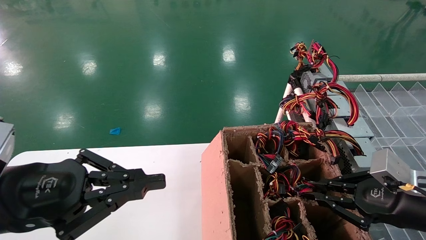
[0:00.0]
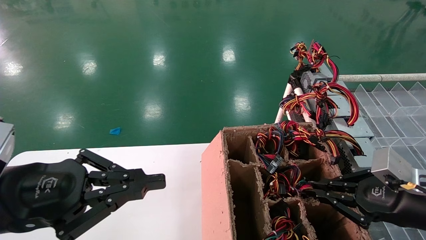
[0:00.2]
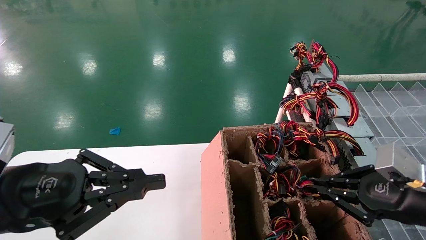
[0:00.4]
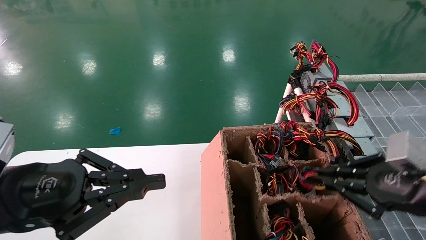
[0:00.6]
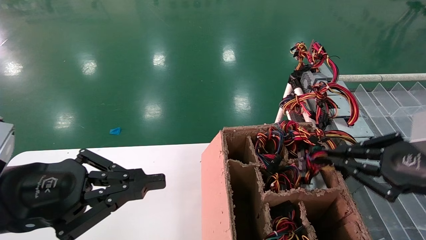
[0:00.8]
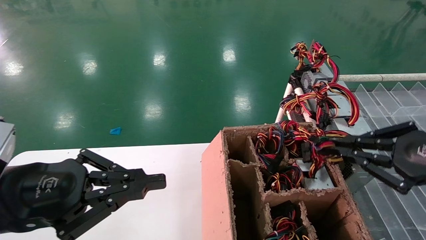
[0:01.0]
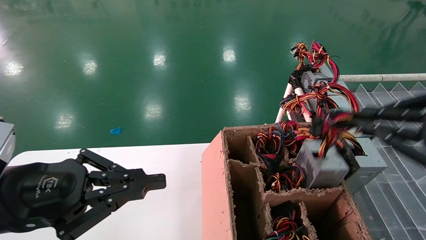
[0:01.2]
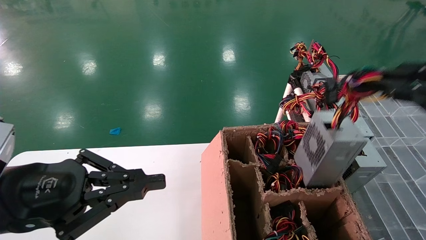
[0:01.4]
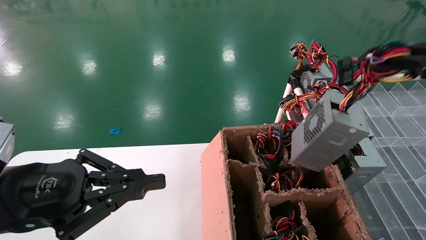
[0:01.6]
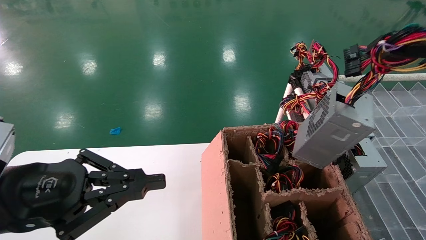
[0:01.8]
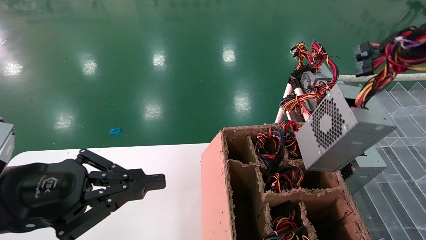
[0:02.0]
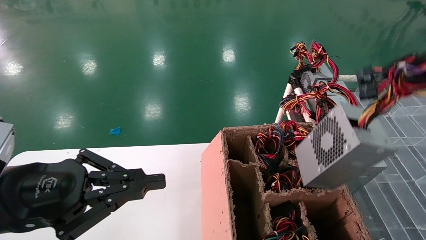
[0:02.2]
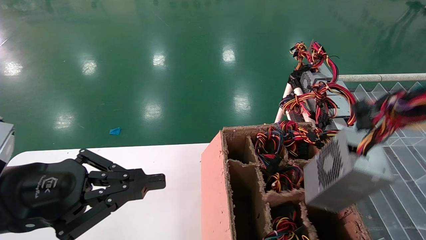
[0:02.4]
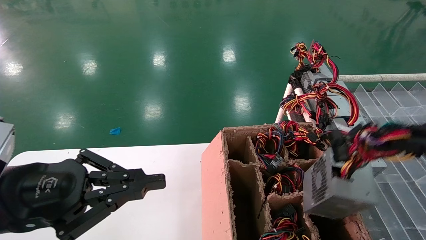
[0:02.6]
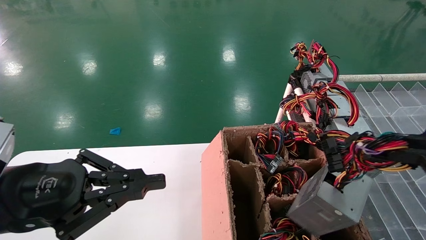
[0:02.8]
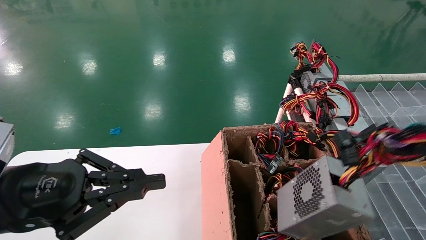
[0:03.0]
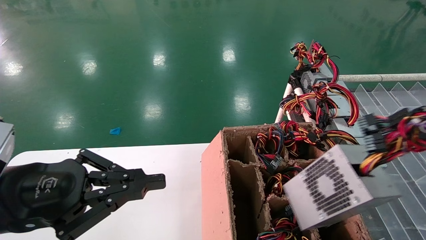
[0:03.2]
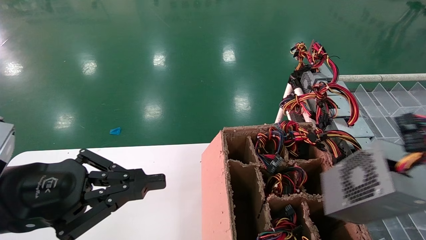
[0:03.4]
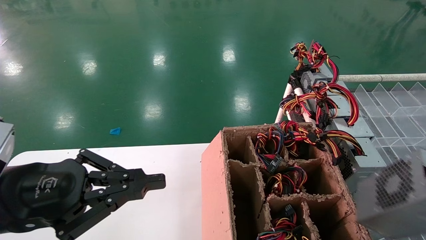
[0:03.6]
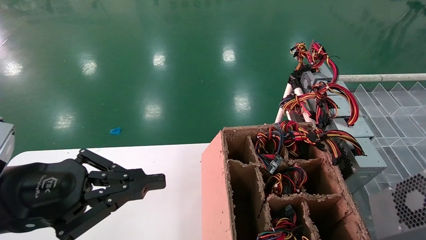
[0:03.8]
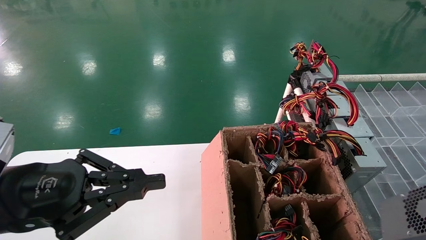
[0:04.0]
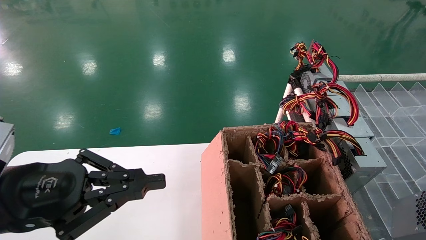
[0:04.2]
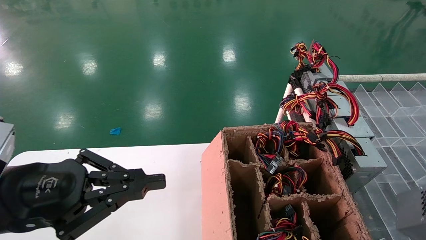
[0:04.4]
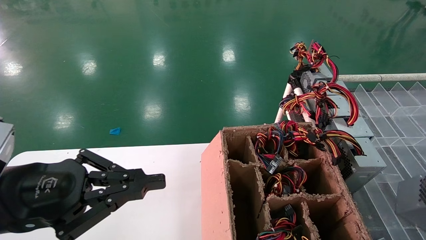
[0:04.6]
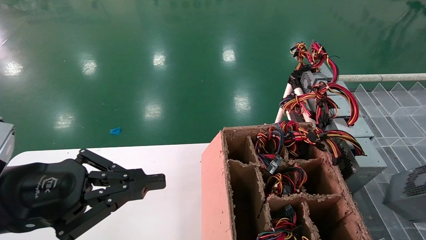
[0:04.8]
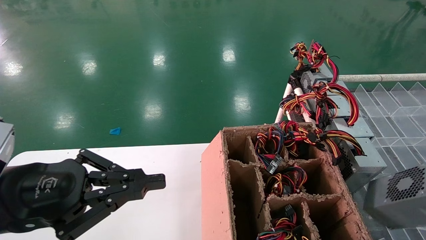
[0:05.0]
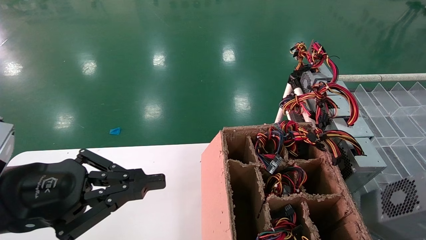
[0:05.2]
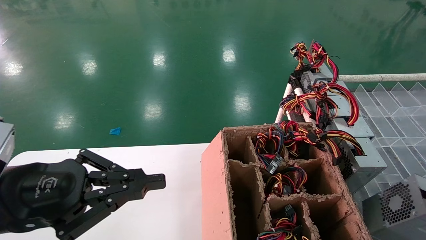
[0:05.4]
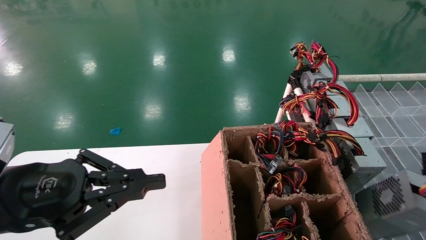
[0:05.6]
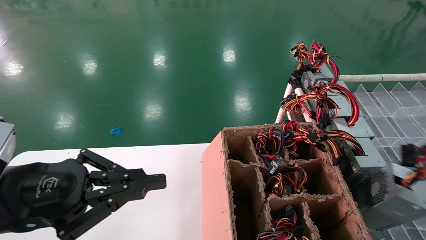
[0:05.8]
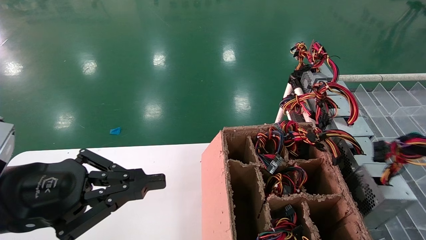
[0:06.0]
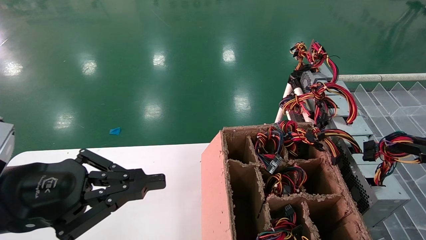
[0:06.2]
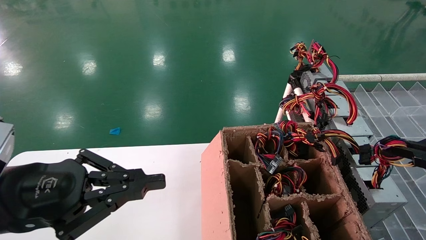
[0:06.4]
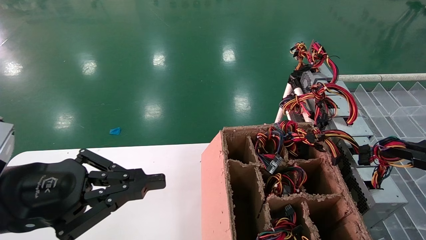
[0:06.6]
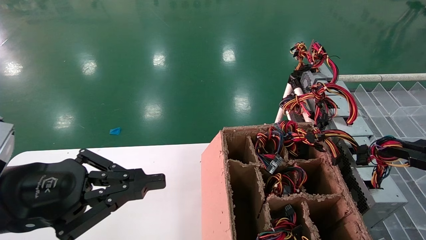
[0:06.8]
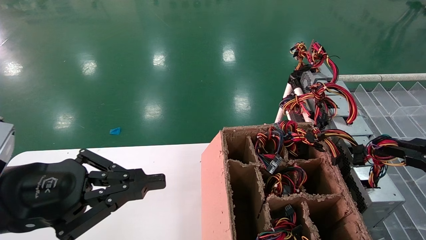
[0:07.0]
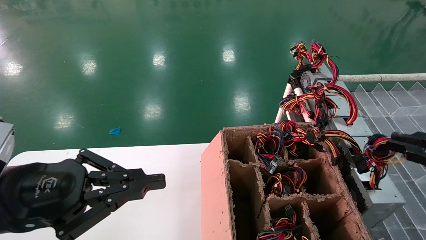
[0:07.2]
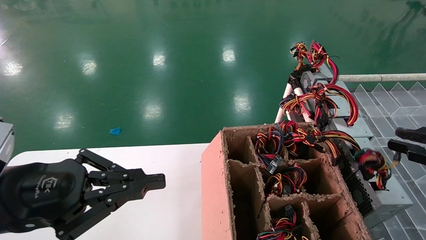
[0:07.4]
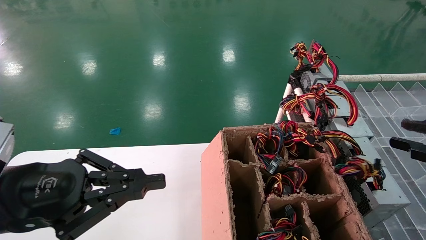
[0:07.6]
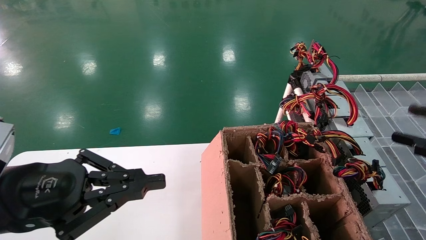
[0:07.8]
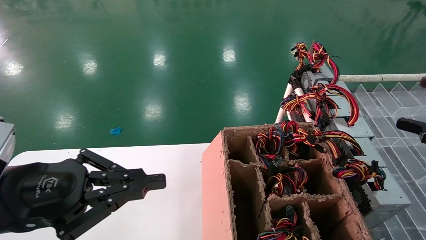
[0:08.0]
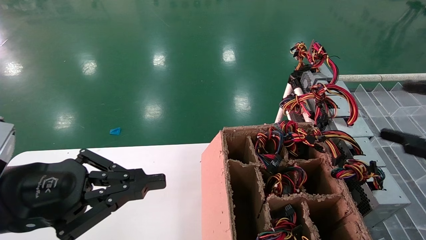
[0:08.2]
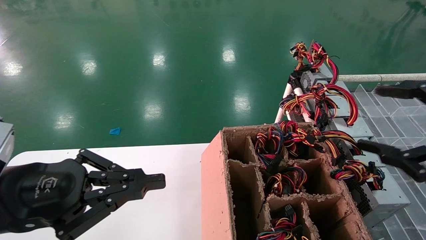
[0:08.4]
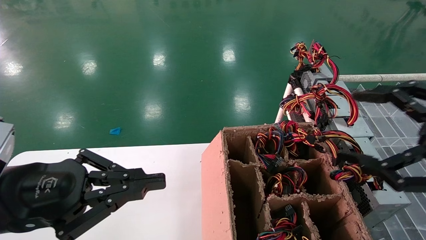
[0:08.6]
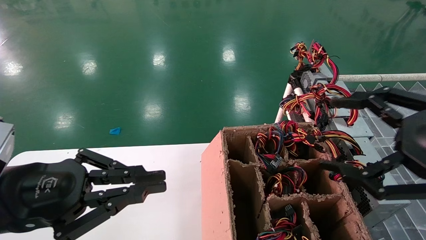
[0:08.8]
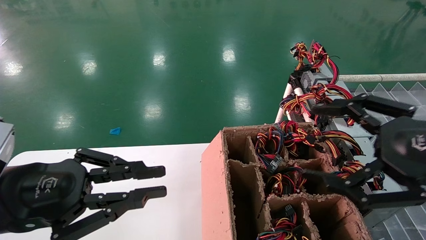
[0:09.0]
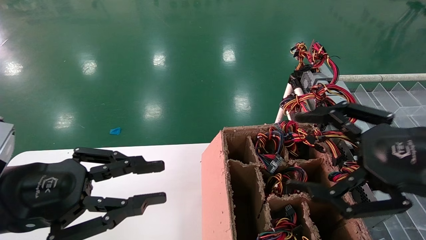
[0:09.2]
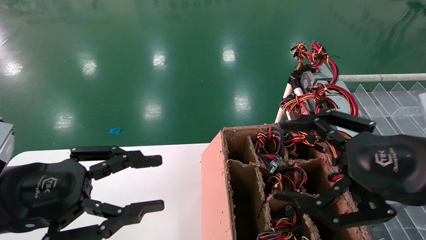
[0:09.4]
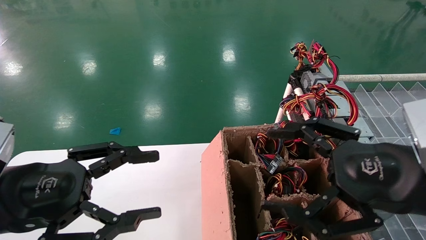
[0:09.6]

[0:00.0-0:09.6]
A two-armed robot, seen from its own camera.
Step, 0:00.4 to 0:07.4: Place the main unit power supply in the designated area.
0:00.0 to 0:01.6: The right gripper is displaced upward and backward by approximately 25 cm.
0:01.6 to 0:03.2: The right gripper heads backward, covering roughly 10 cm.
0:03.2 to 0:04.8: The right gripper heads to the right and downward, covering about 10 cm.
0:04.8 to 0:06.4: The right gripper shifts about 10 cm forward.
0:06.4 to 0:08.0: The right gripper ends up roughly 5 cm from where it was, and opens its fingers.
0:08.0 to 0:09.6: The right gripper shifts roughly 15 cm to the left and forward, and opens up; the left gripper opens up.

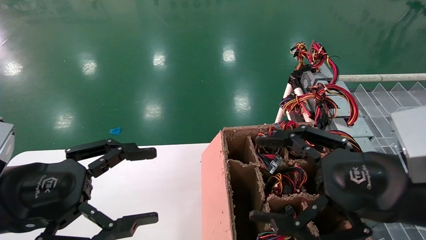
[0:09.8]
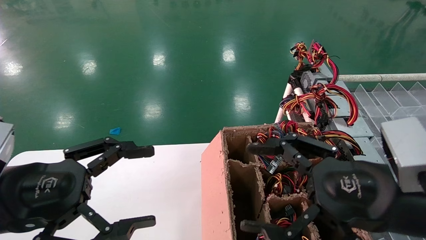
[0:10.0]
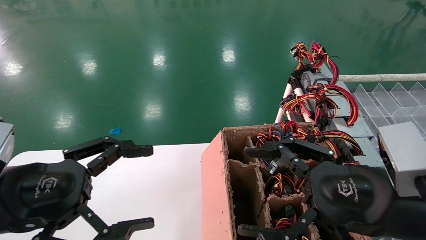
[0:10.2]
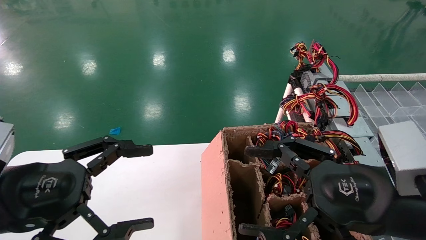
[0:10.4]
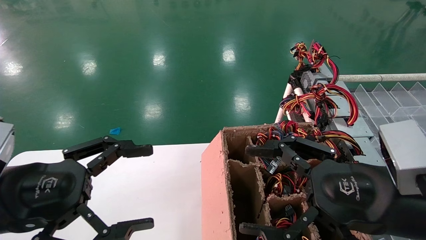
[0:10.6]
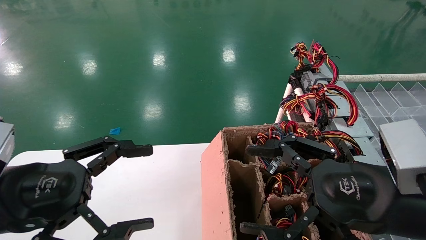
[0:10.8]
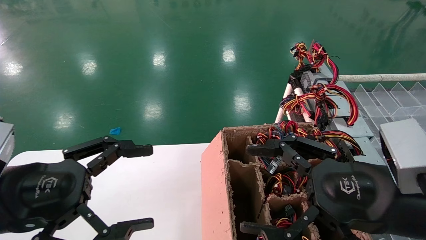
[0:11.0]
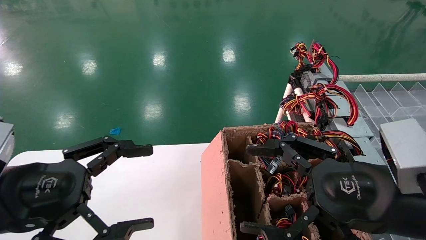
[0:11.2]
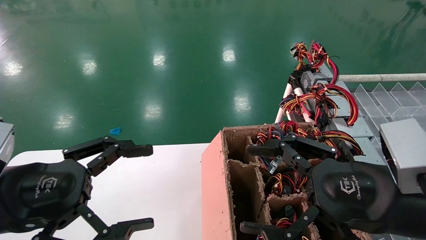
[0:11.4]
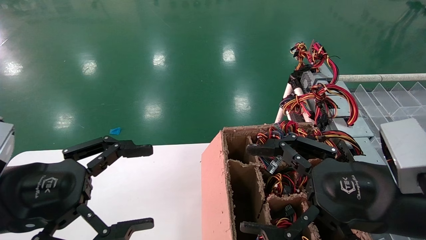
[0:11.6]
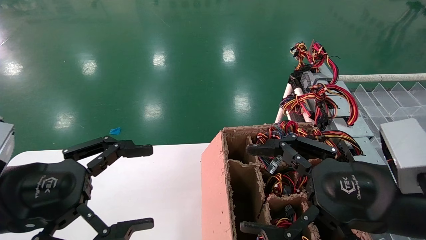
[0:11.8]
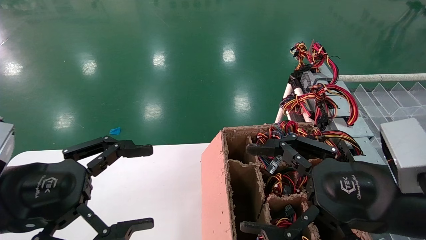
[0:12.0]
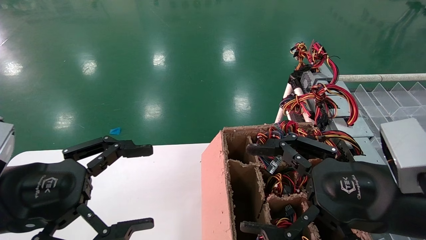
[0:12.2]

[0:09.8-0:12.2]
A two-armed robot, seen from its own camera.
0:09.8 to 0:11.0: There are only small adjustments of the grippers.
0:11.0 to 0:12.2: Both grippers stay put.
